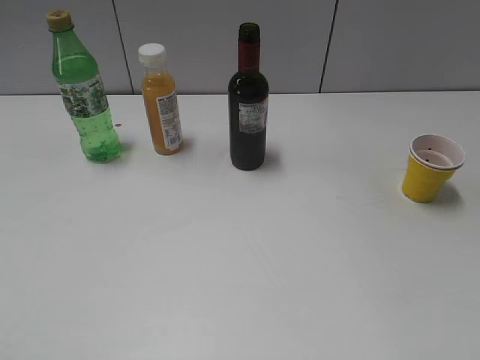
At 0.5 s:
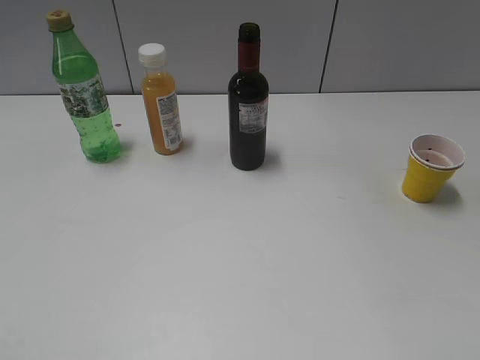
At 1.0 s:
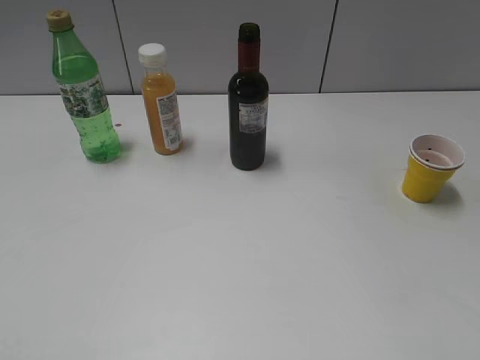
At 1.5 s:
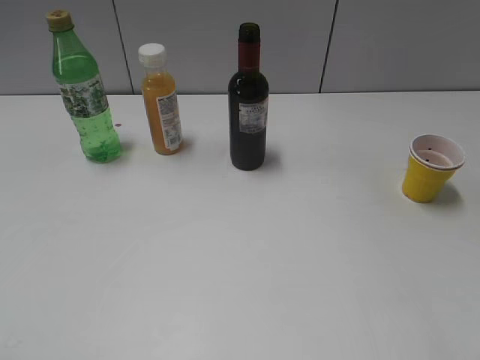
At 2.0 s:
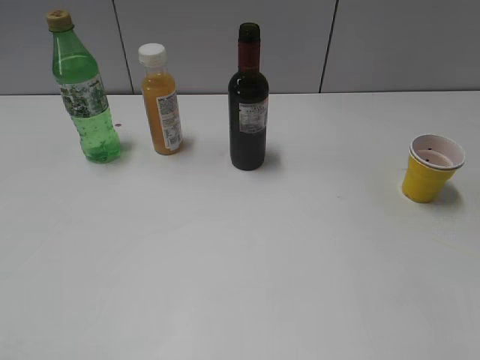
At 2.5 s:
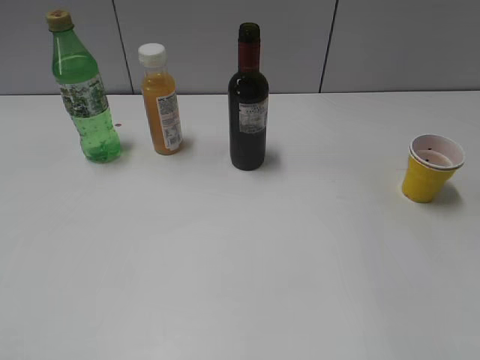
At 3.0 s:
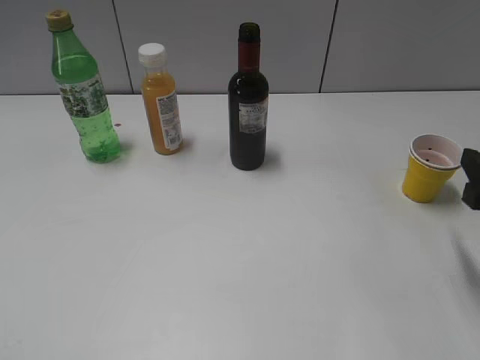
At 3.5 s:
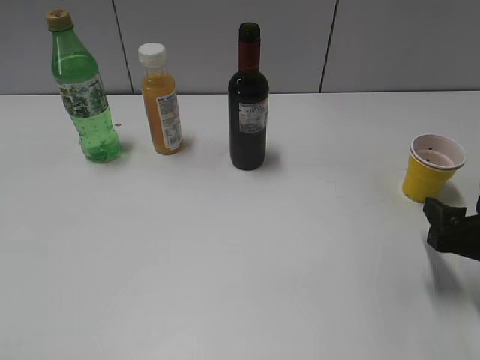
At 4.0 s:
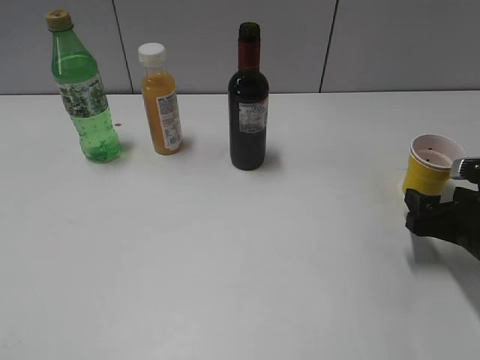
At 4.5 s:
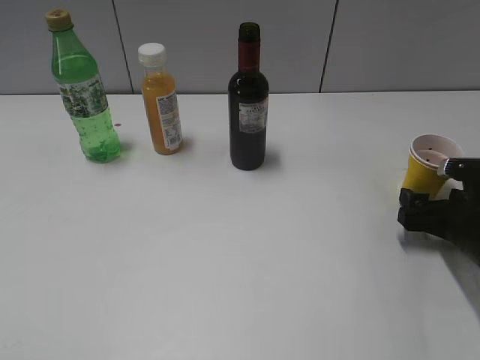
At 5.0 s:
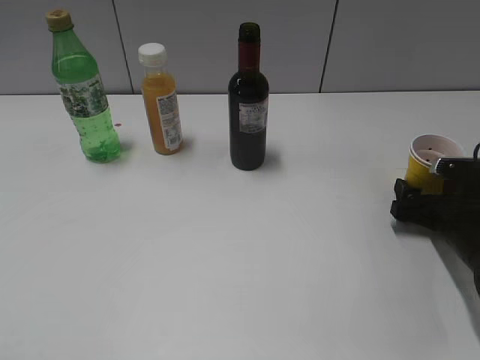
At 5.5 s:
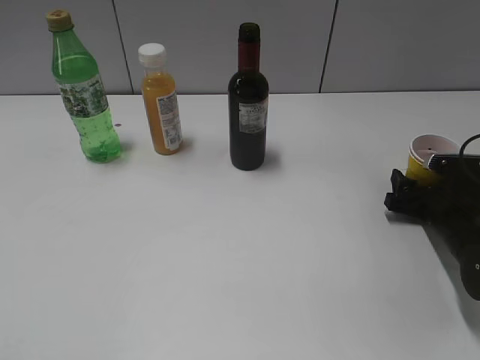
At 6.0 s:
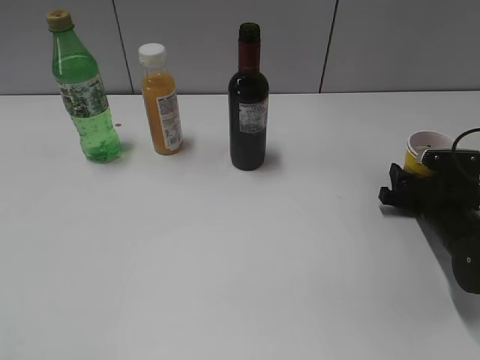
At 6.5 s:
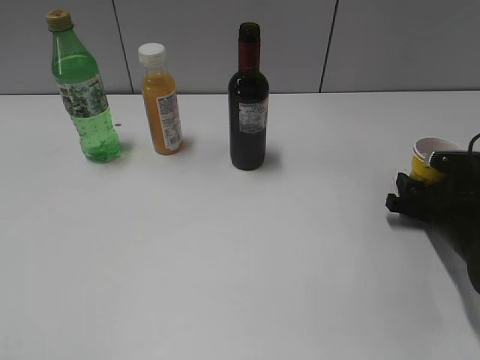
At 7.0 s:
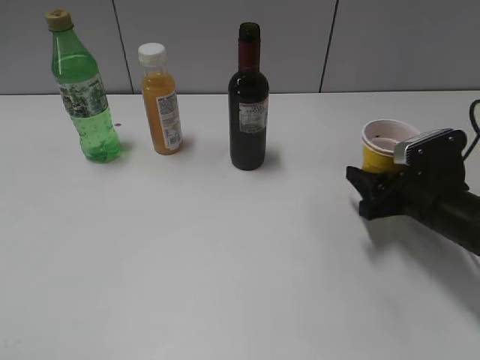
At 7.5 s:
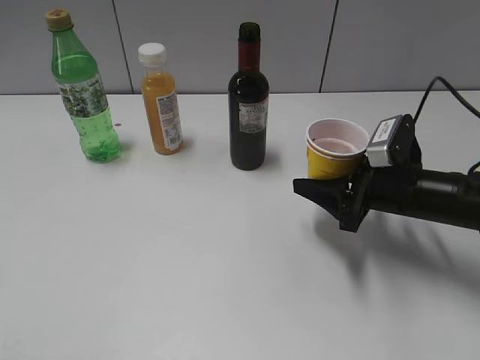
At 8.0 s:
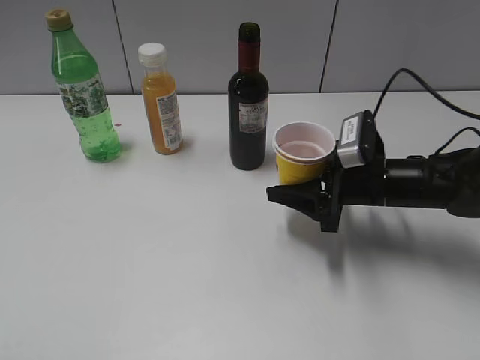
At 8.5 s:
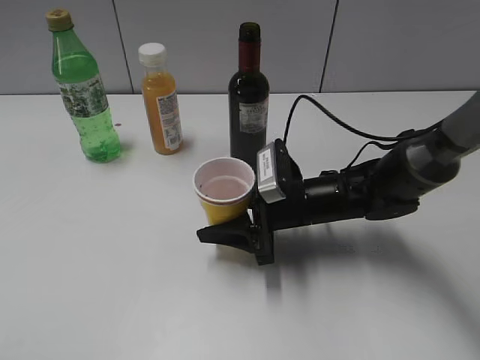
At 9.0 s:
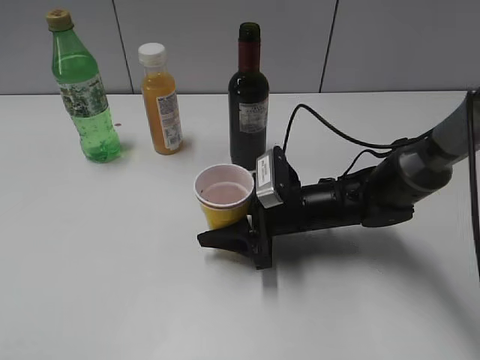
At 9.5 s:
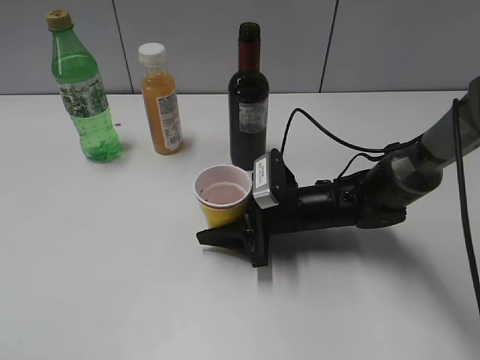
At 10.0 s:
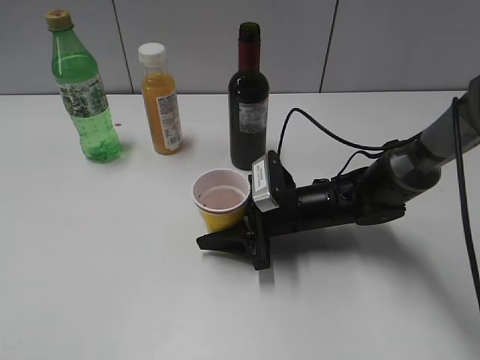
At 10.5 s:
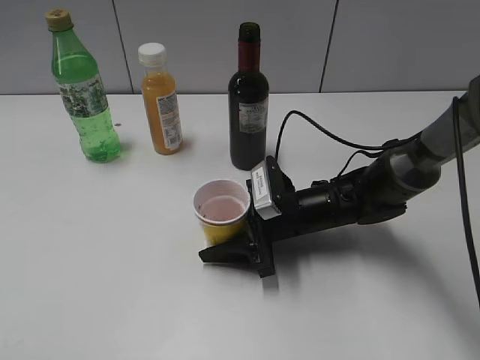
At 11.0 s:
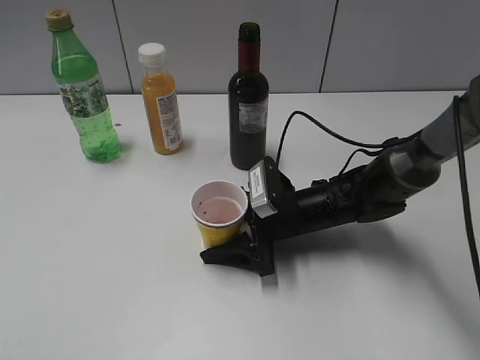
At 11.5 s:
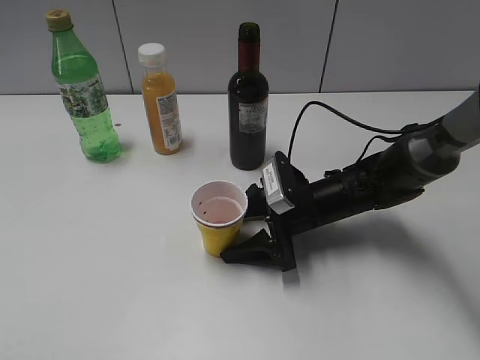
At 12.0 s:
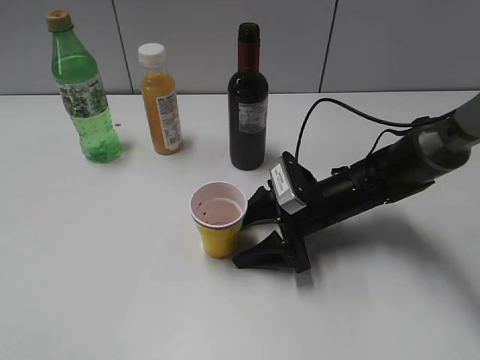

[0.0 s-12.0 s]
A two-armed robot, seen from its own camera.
Step, 1.0 to 6.0 s: Grasp the yellow paper cup with right gripper.
Step, 6.5 to 11.5 s: Place the yellow paper cup on the table with right gripper.
2.0 to 4.0 s: The right gripper goes about 25 cm downward and forward.
4.0 to 6.0 s: The right gripper moves forward and downward, about 10 cm, and closes.
6.0 to 8.0 s: The right gripper is displaced to the left and upward by approximately 15 cm, and closes up.
8.0 to 10.0 s: The right gripper goes roughly 10 cm to the left and downward.
10.0 to 12.0 s: The right gripper opens up.

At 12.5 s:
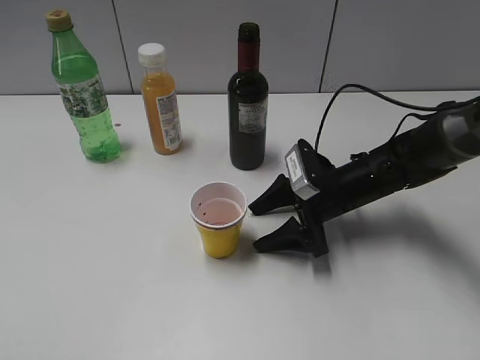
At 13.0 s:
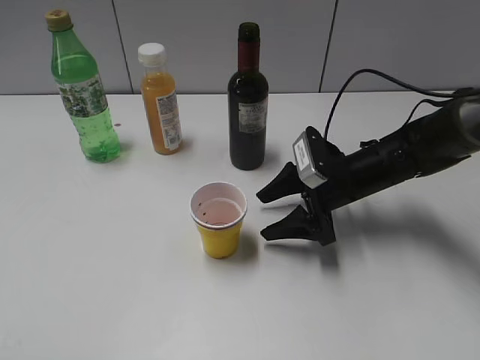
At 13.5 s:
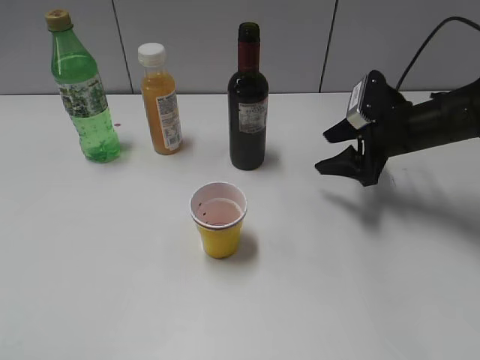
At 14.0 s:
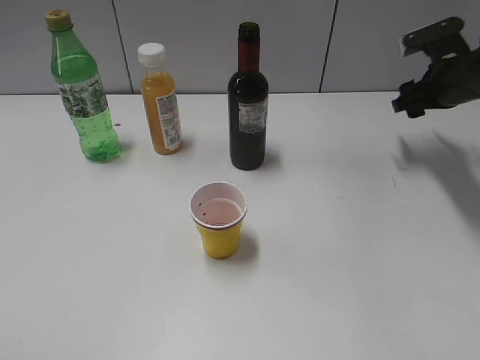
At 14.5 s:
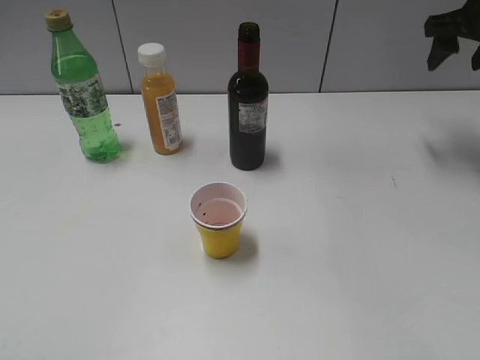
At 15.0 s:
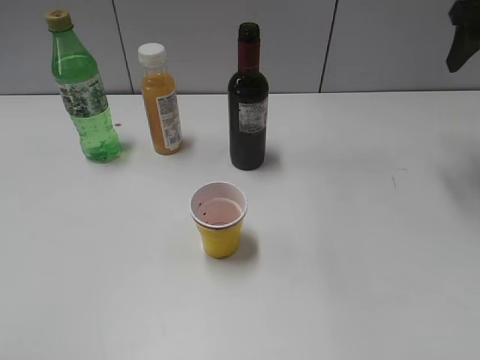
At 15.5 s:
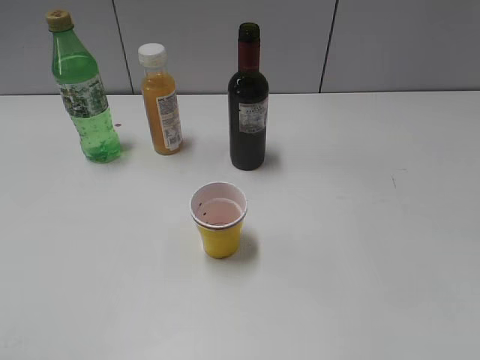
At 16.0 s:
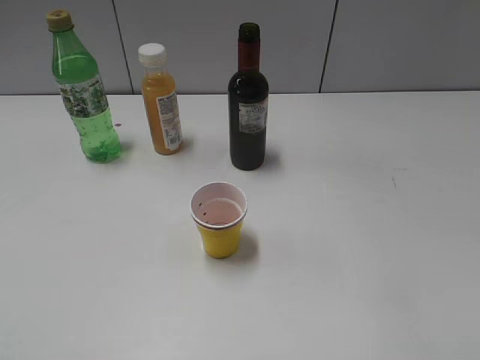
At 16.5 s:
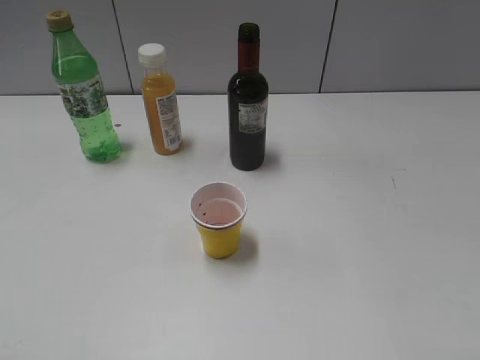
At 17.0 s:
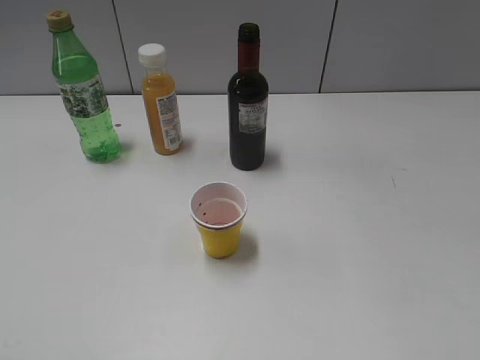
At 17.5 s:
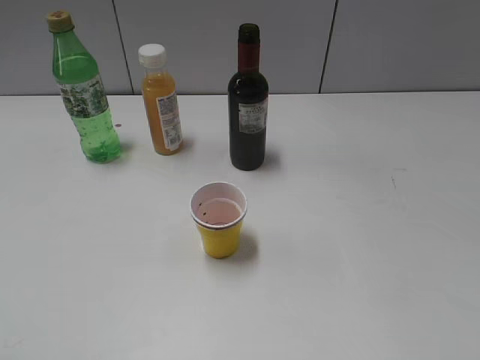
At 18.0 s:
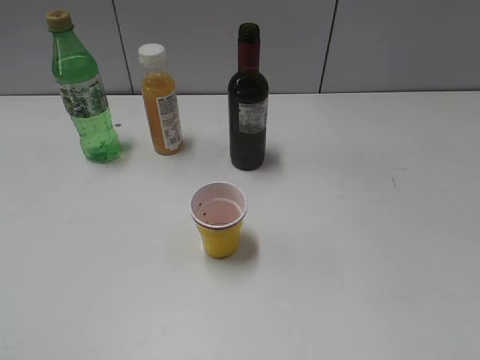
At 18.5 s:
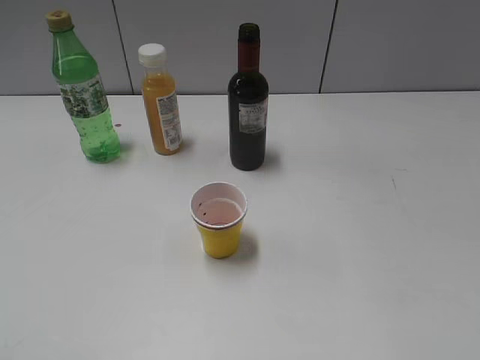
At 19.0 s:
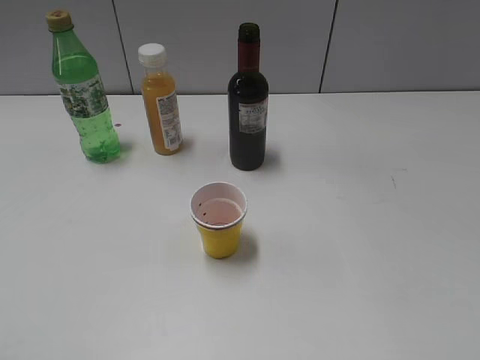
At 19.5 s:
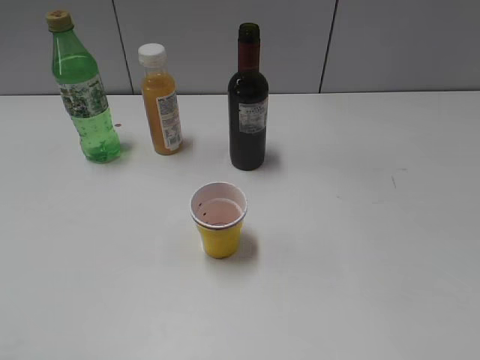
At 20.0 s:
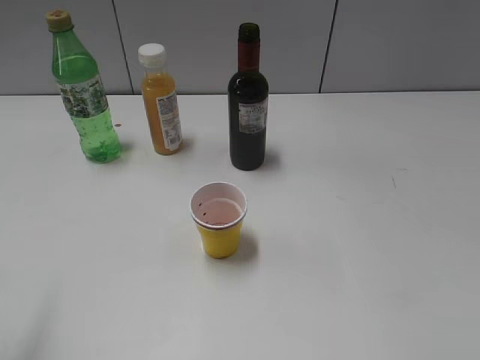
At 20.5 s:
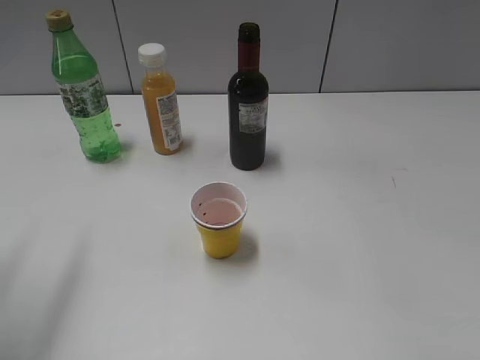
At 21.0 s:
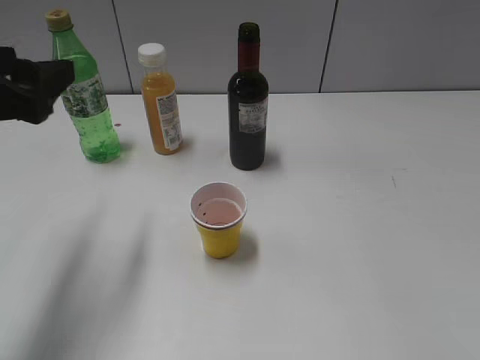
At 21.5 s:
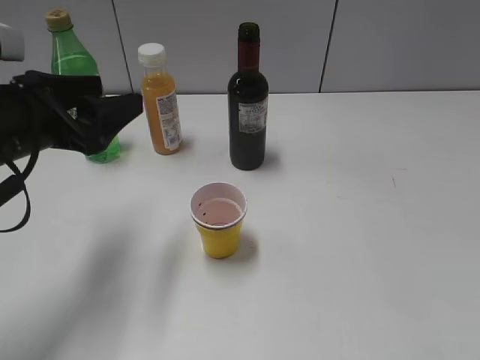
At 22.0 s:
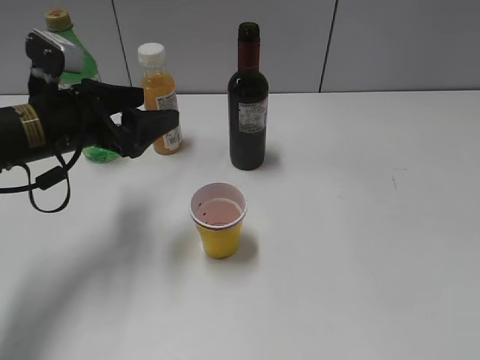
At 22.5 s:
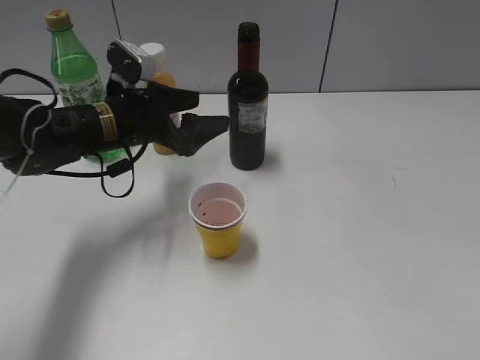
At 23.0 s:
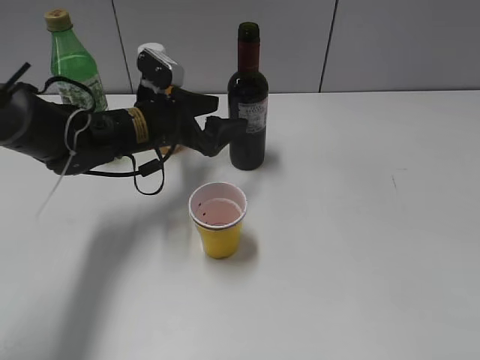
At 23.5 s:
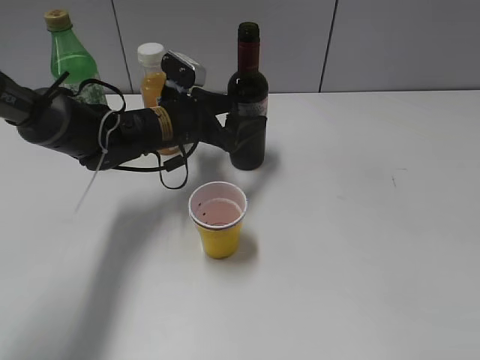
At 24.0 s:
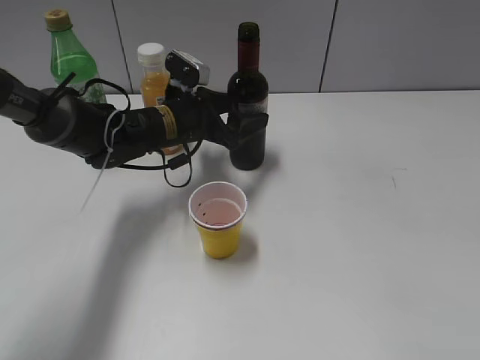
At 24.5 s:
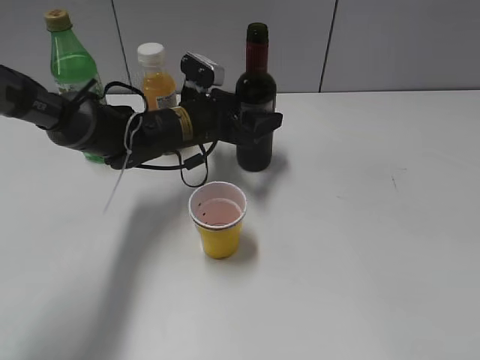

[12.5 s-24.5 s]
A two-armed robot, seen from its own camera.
12.5 to 14.5 s: The right gripper travels upward, to the right and forward by roughly 30 cm.
14.5 to 16.5 s: The right gripper heads backward, covering some 40 cm, and closes up.
18.5 to 20.5 s: The left gripper is displaced forward by roughly 20 cm, and opens its fingers.
20.5 to 22.5 s: The left gripper goes roughly 30 cm forward, downward and to the right, and opens up.
22.5 to 24.5 s: The left gripper heads to the right and forward, covering some 10 cm, and closes up.

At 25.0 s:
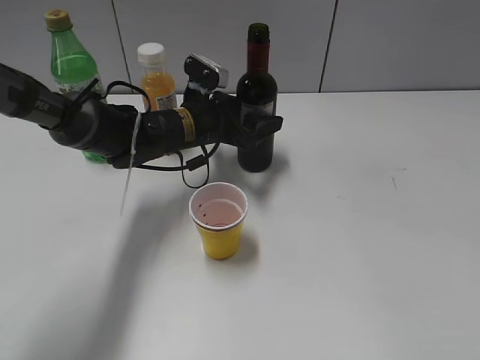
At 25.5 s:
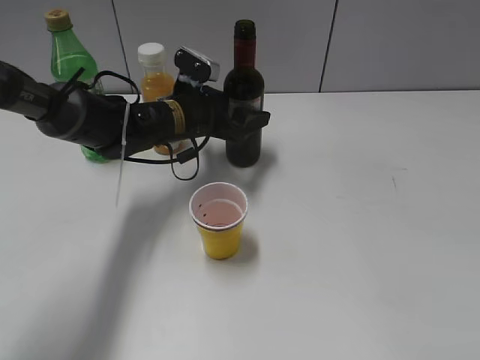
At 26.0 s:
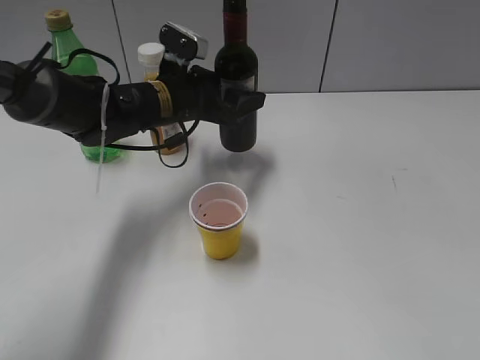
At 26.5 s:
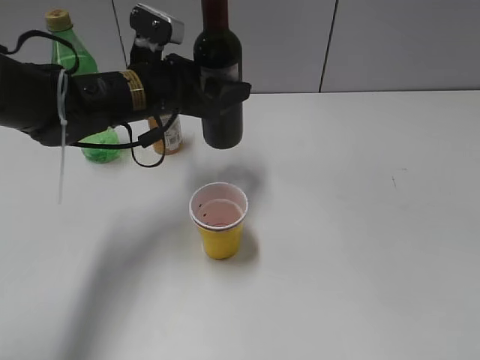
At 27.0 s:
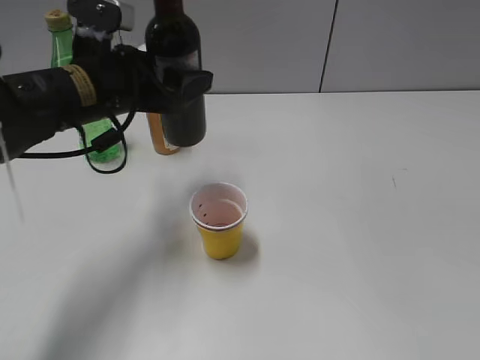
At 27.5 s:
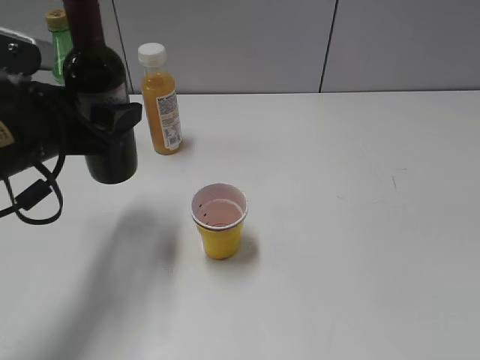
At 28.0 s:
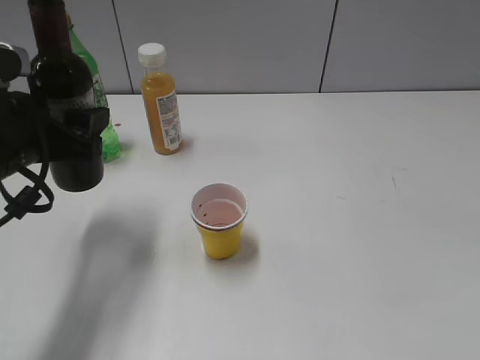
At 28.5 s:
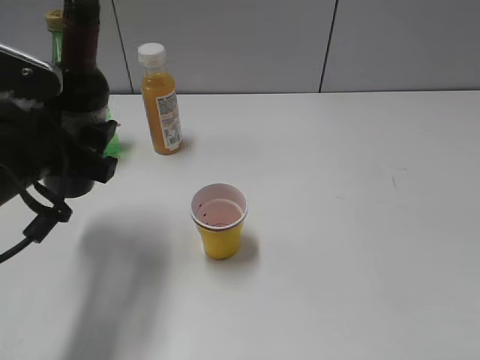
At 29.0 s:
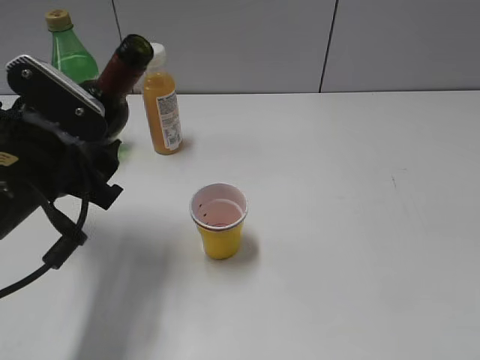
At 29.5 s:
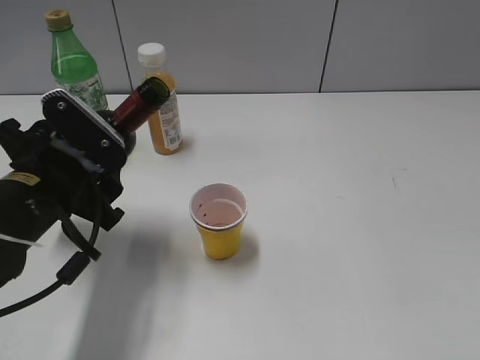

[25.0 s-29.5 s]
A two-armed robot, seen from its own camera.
25.0 to 27.0 s: The left gripper goes approximately 15 cm upward, backward and to the left.
27.0 to 29.5 s: The left gripper heads backward and downward, covering some 10 cm.